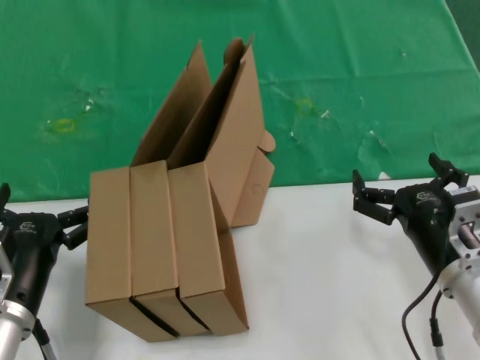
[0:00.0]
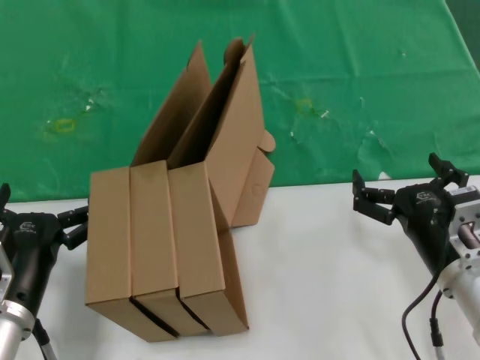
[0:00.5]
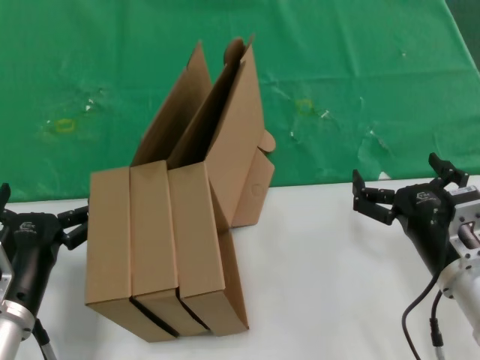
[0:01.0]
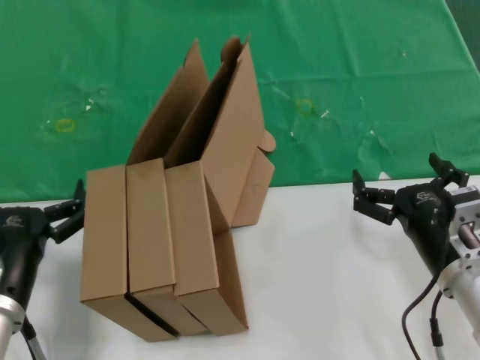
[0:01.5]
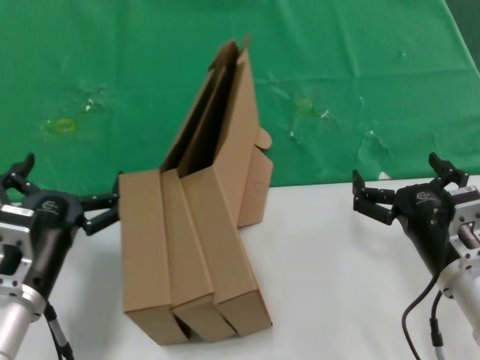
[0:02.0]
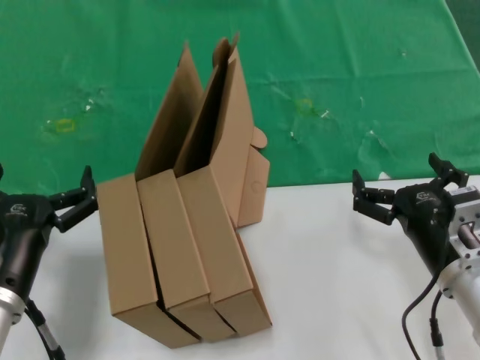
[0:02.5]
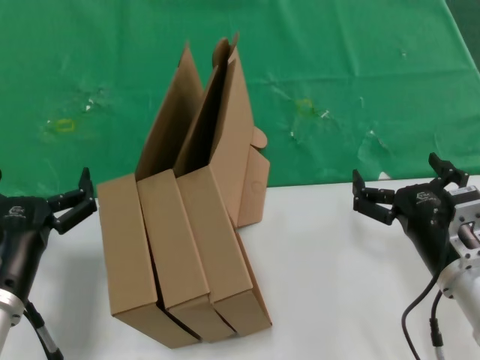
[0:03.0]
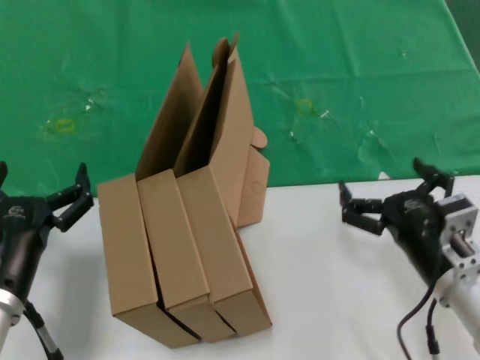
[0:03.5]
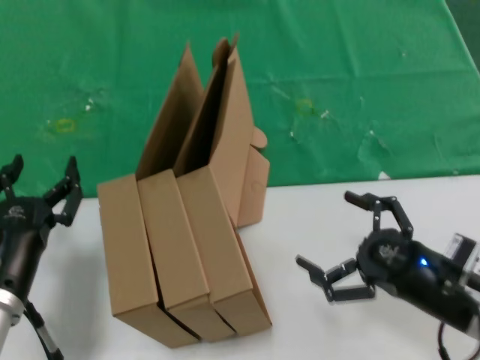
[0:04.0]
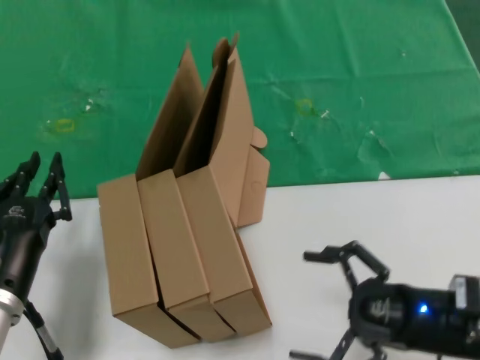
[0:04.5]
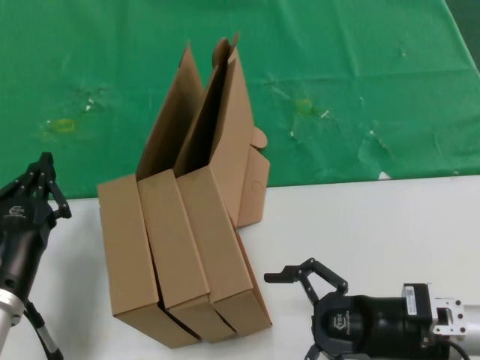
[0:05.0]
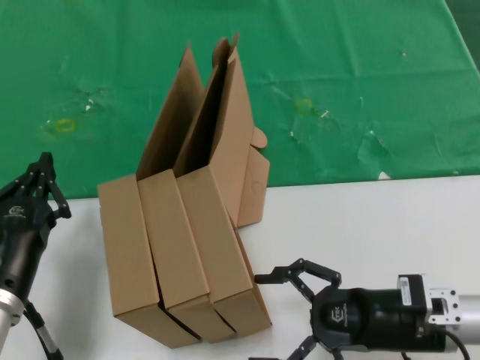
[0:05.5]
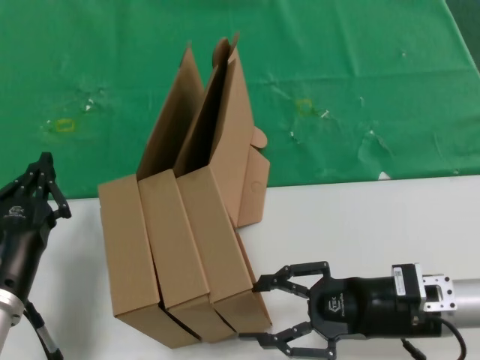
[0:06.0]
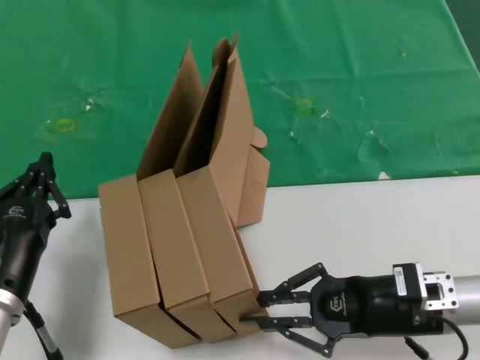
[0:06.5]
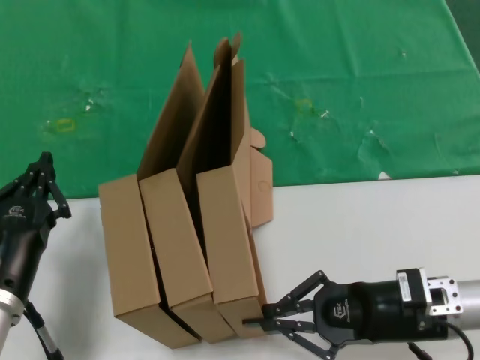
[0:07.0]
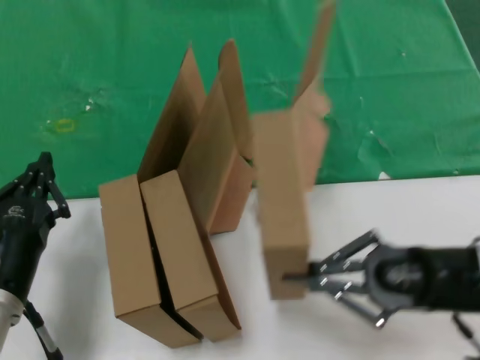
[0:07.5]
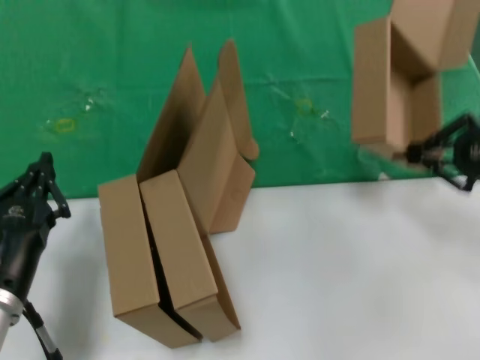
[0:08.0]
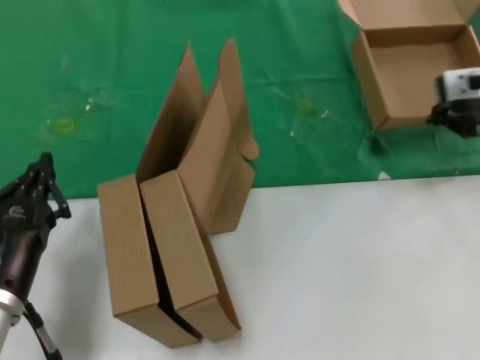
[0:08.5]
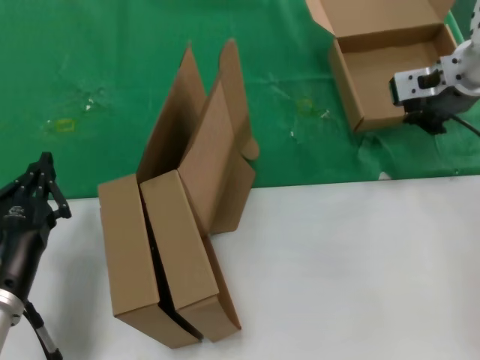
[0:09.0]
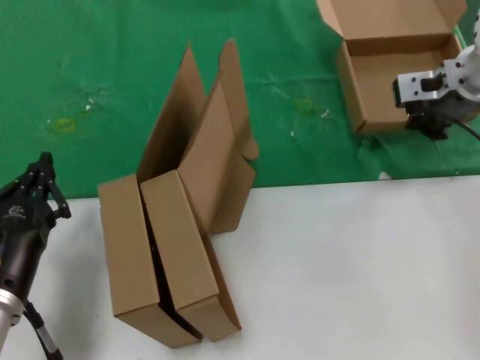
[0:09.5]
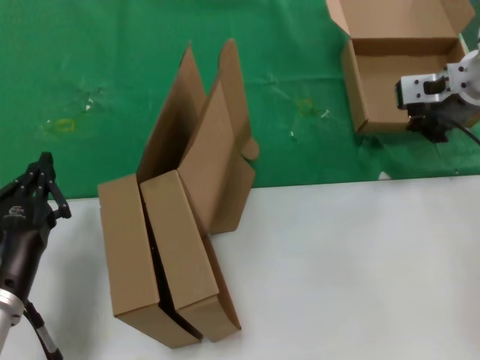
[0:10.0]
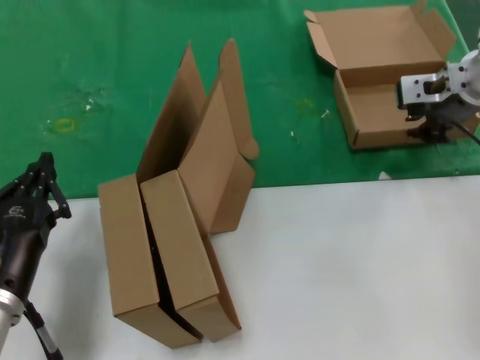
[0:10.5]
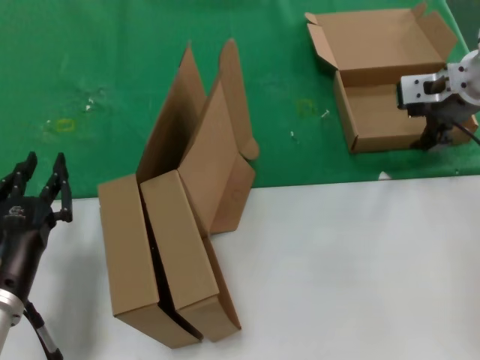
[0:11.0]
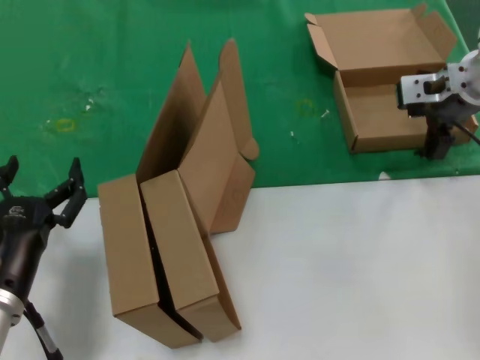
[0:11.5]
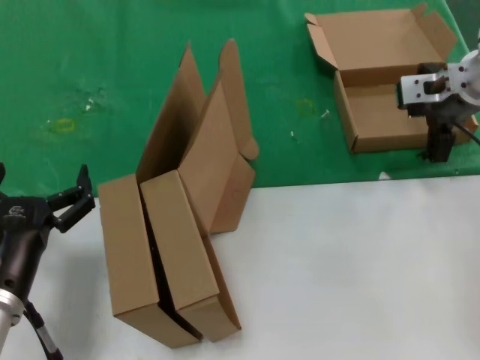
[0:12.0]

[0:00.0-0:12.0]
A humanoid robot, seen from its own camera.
Task of the whole recording: pick up the paper box and put it at the back.
Step, 0:00.0 to 0:06.5: Grasp the paper box.
Step, 0:07.0 to 0:10.5: Place the paper box on the table.
0:00.0 to 0:02.0: The hands move only a little.
0:04.0 to 0:06.0: The right hand is displaced forward by roughly 5 cm.
0:06.0 to 0:08.0: The right hand heads upward and to the right, covering about 25 cm.
0:08.0 to 0:10.0: The right hand moves forward and to the left, about 20 cm.
0:10.0 to 0:12.0: Neither hand changes place.

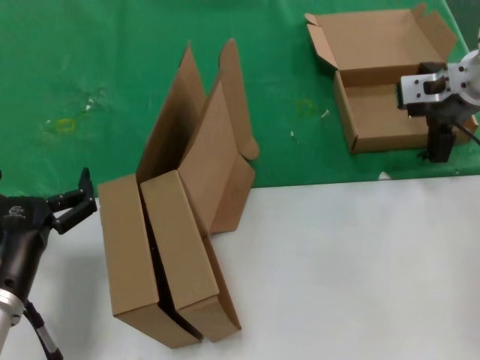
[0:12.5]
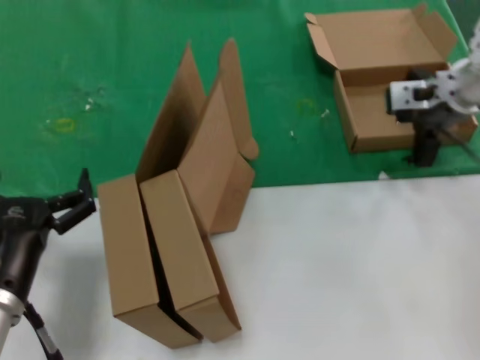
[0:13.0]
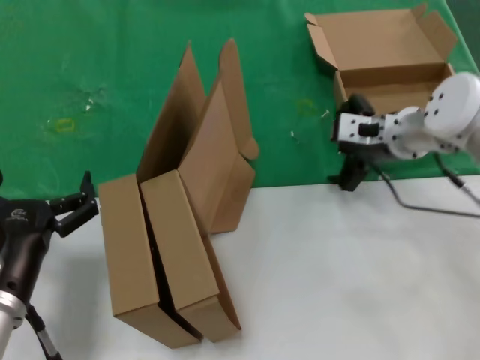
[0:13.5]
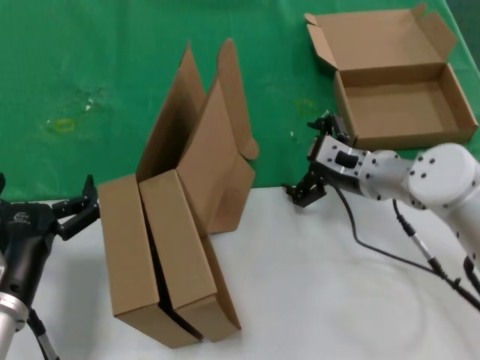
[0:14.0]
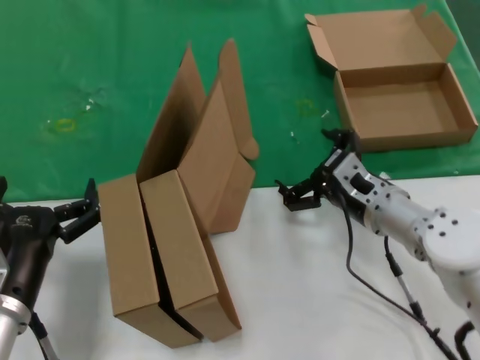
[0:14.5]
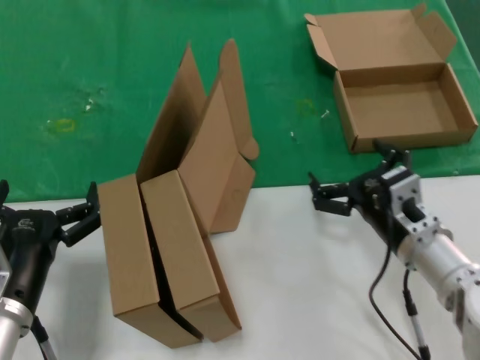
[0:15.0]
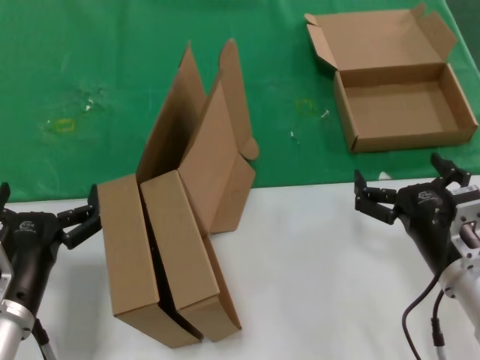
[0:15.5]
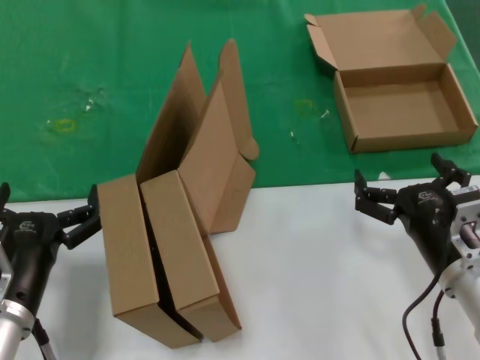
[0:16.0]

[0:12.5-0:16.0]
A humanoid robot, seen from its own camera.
Task of the whole recording: pick up the paper box and put it at the back.
0:12.5 to 0:14.5: The right hand heads downward, backward and to the left, covering roughly 25 cm.
0:14.5 to 0:16.0: The right hand heads backward, covering about 15 cm.

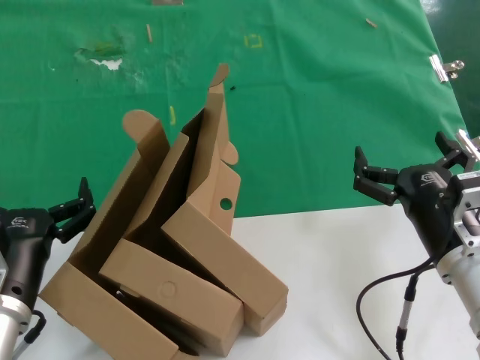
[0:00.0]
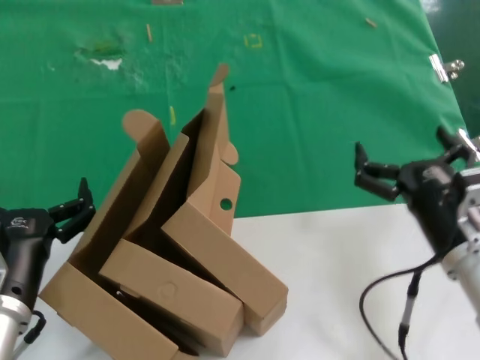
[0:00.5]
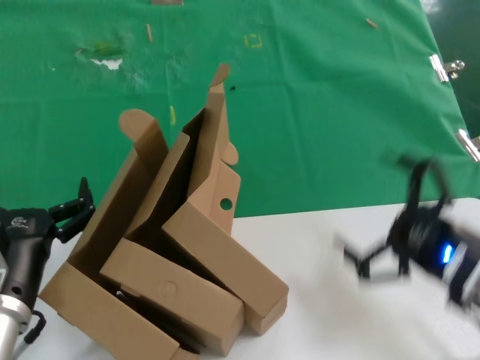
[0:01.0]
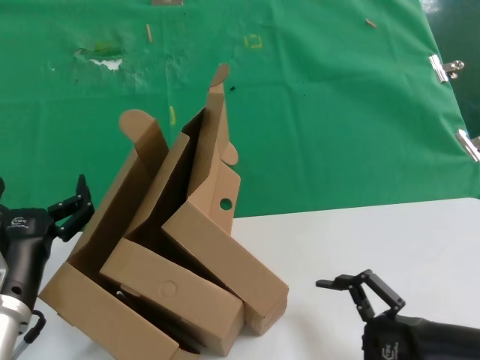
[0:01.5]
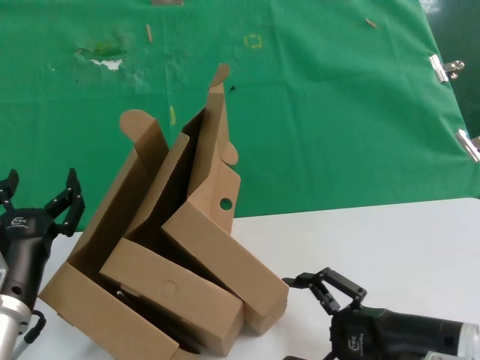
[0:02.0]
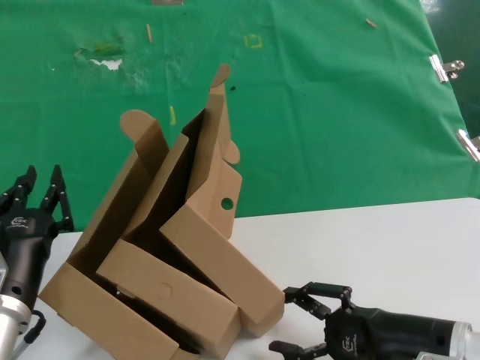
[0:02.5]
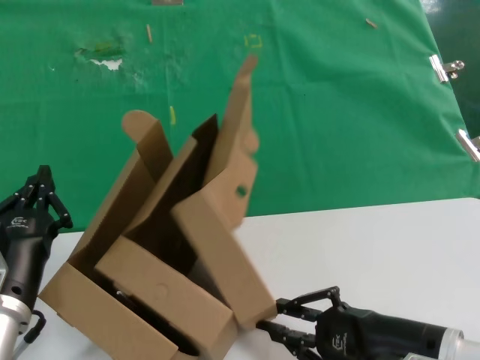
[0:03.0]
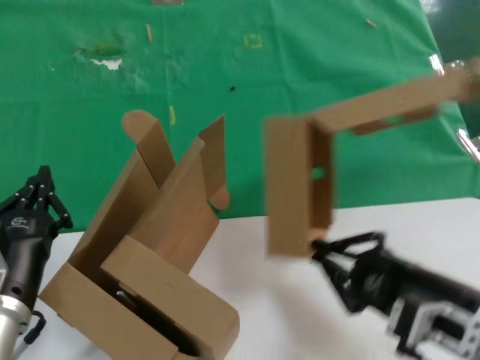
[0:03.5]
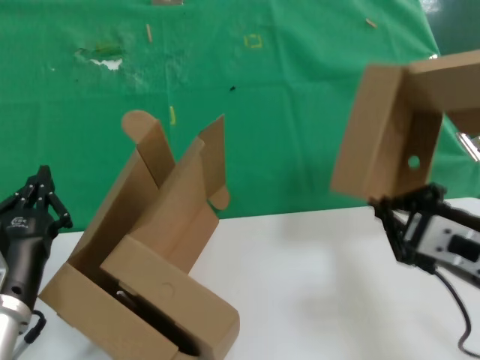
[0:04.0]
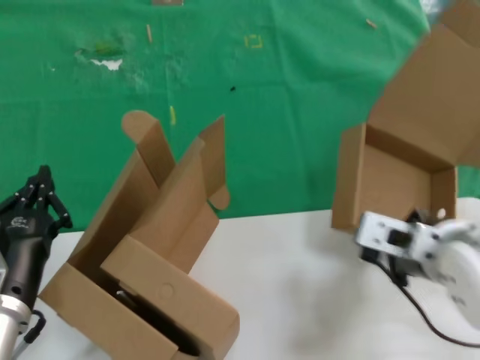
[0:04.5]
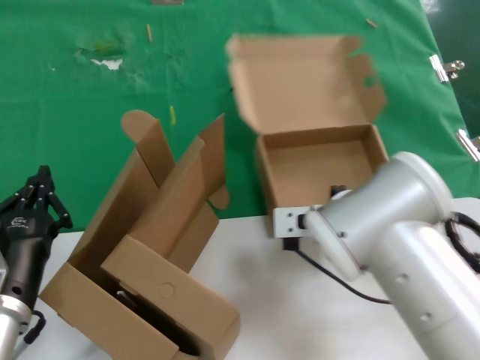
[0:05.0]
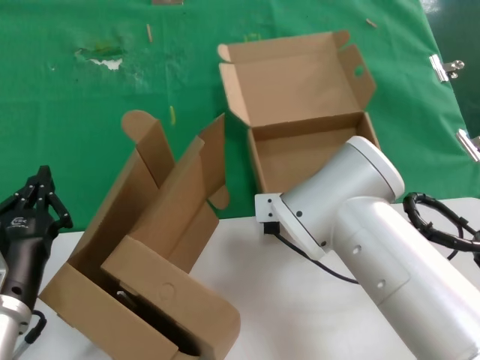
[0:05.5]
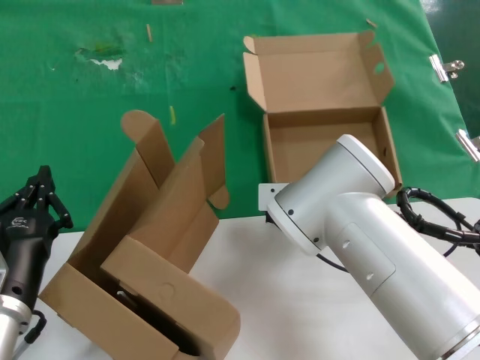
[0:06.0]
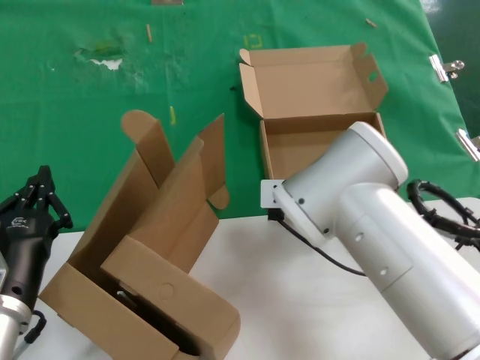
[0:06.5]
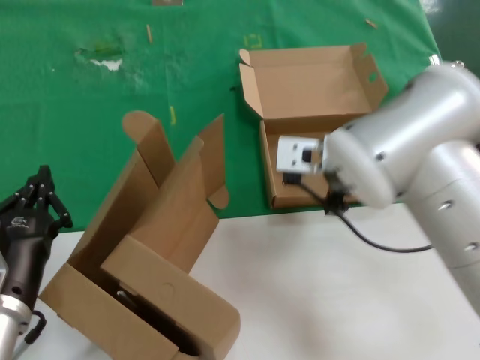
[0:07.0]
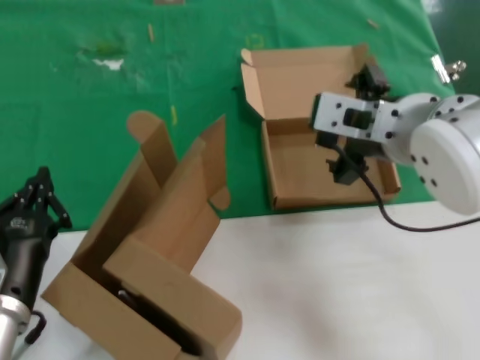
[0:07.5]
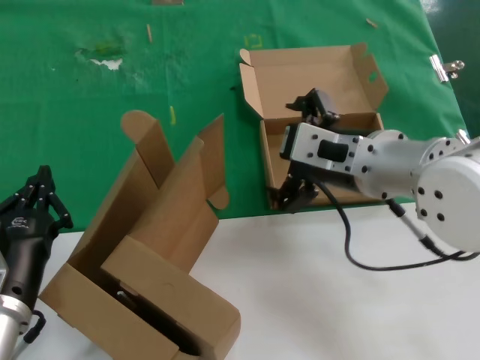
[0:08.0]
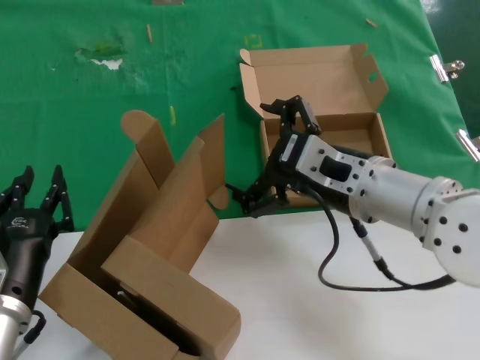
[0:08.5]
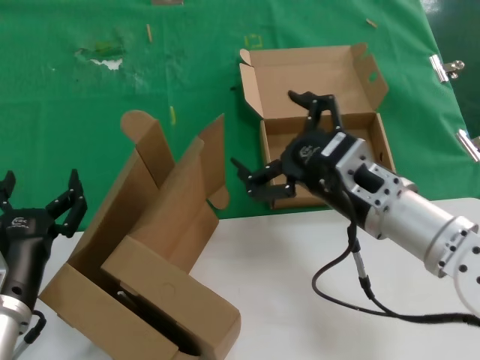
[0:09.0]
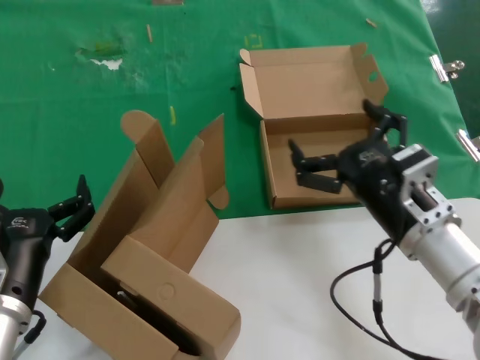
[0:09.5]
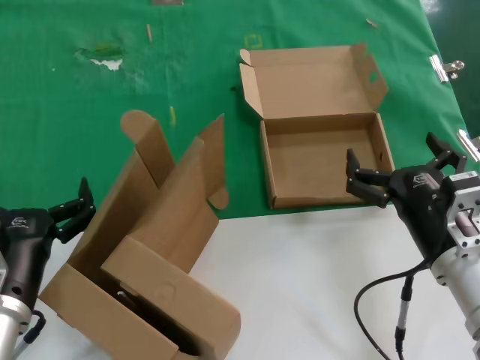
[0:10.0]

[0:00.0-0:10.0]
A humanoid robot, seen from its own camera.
Task of the whole recording: pick up the paper box and put it at the back.
Step, 0:00.0 to 0:03.0: Grasp the paper box.
Step, 0:03.5 to 0:06.0: Place the paper box on the table.
0:00.0 to 0:02.0: The right hand moves backward, approximately 5 cm.
0:02.0 to 0:04.0: The right hand shifts about 10 cm upward.
0:04.0 to 0:06.0: The right hand goes some 25 cm forward and to the left.
0:06.0 to 0:08.0: The right hand shifts about 15 cm upward, to the right and backward.
0:08.0 to 0:10.0: The right hand travels downward, to the right and backward by approximately 20 cm.
